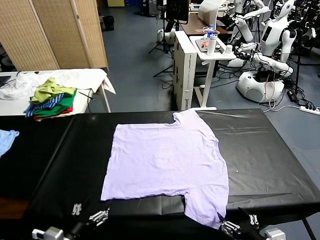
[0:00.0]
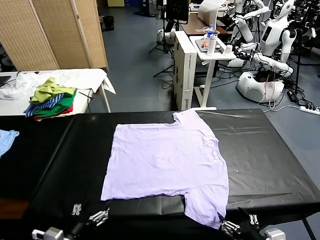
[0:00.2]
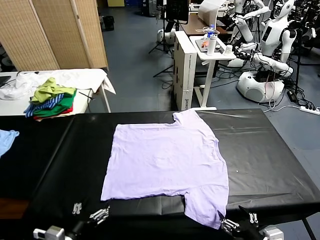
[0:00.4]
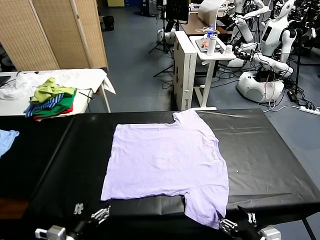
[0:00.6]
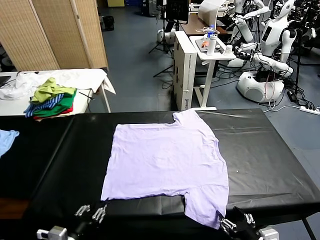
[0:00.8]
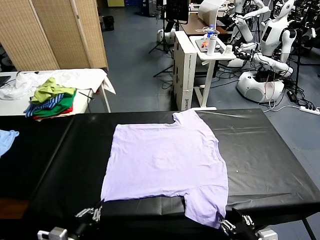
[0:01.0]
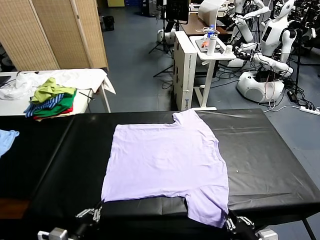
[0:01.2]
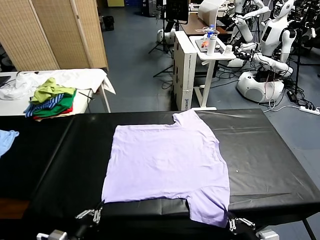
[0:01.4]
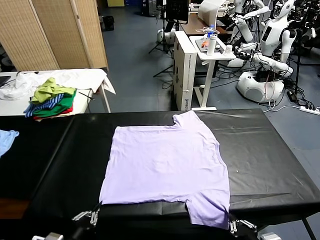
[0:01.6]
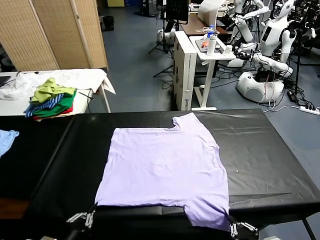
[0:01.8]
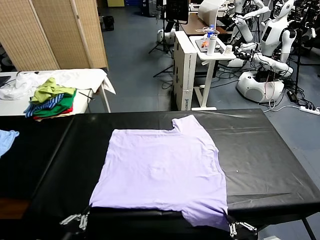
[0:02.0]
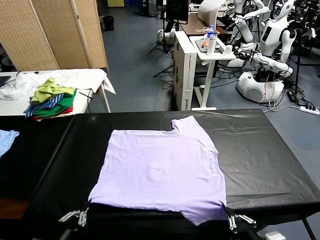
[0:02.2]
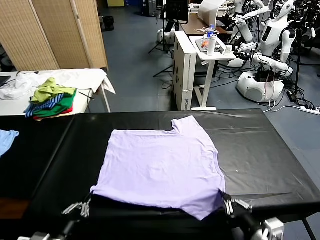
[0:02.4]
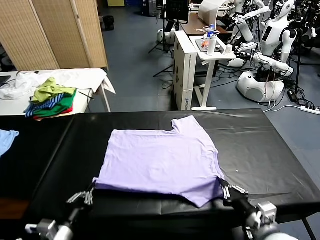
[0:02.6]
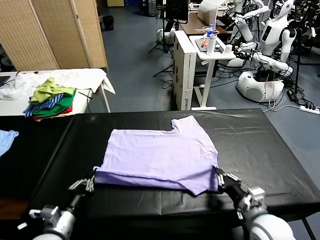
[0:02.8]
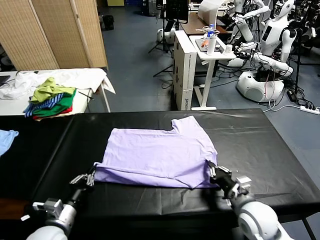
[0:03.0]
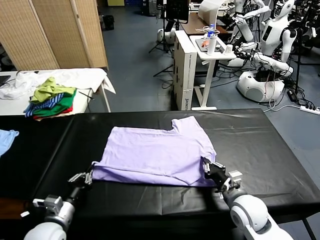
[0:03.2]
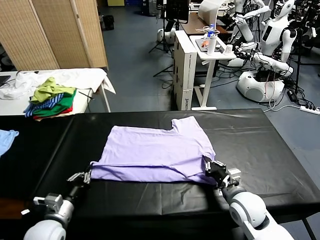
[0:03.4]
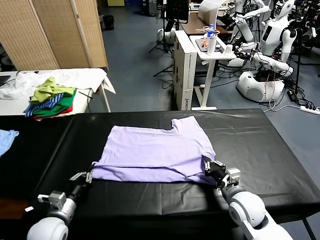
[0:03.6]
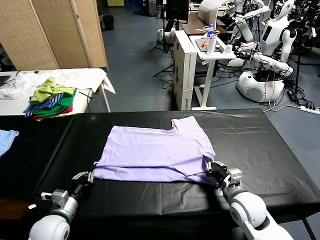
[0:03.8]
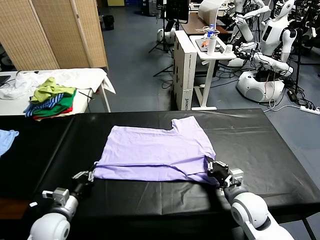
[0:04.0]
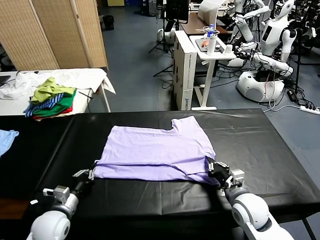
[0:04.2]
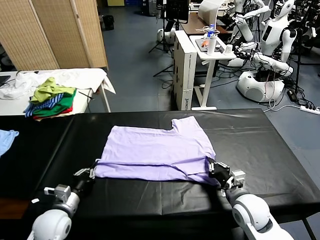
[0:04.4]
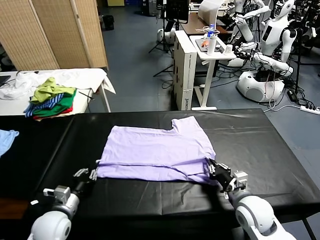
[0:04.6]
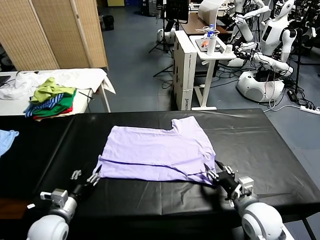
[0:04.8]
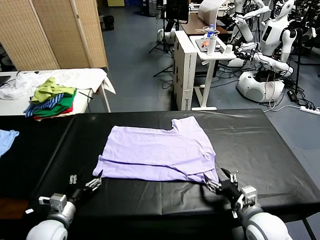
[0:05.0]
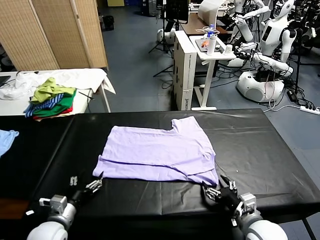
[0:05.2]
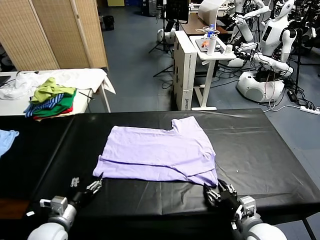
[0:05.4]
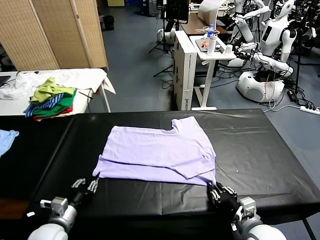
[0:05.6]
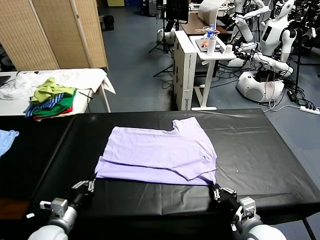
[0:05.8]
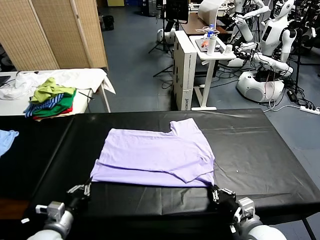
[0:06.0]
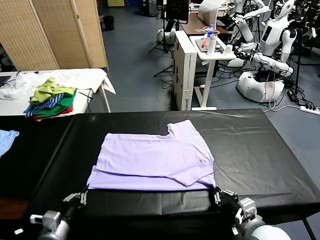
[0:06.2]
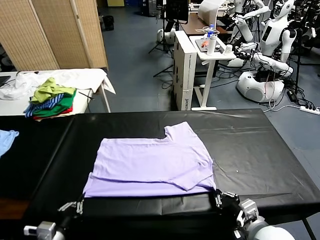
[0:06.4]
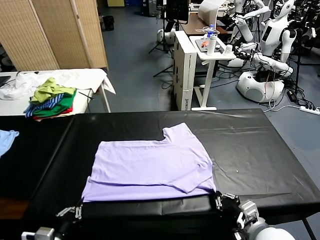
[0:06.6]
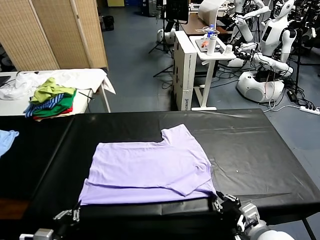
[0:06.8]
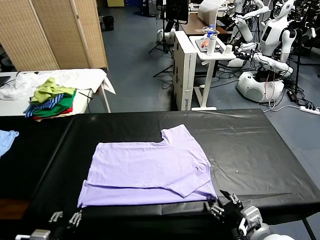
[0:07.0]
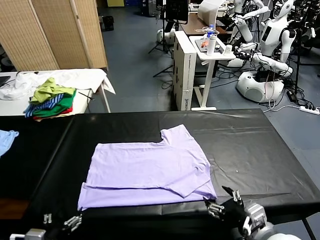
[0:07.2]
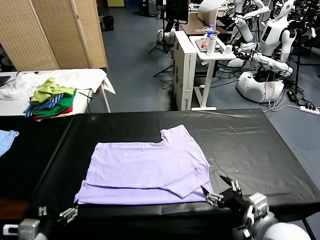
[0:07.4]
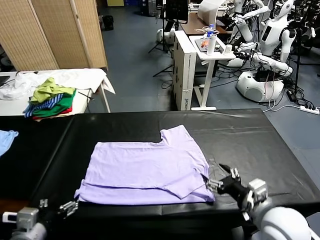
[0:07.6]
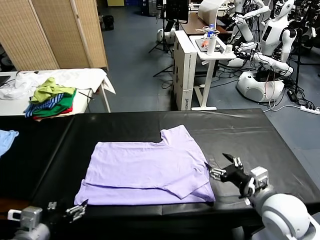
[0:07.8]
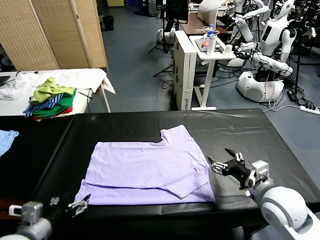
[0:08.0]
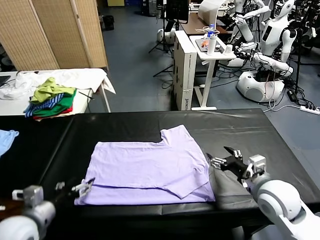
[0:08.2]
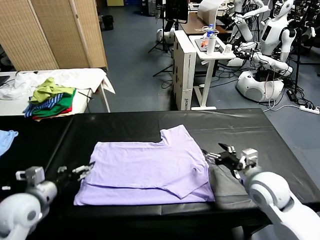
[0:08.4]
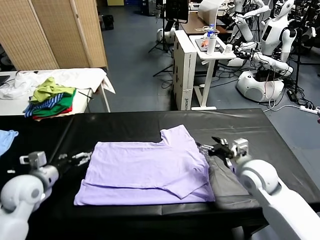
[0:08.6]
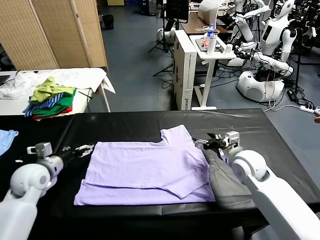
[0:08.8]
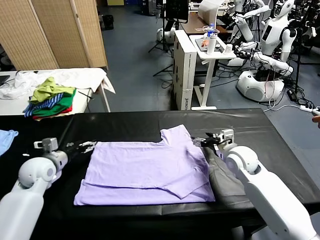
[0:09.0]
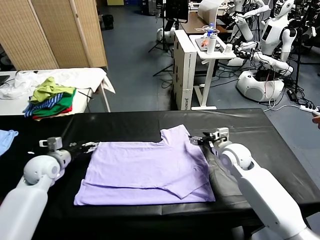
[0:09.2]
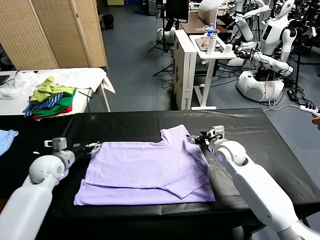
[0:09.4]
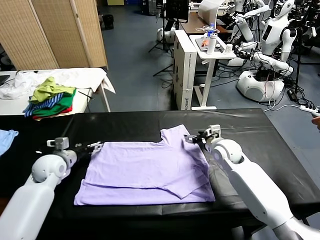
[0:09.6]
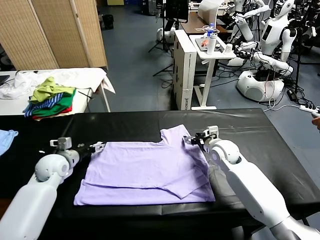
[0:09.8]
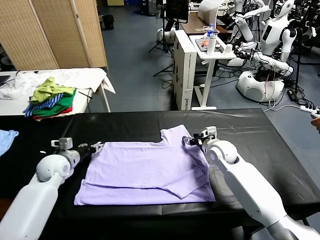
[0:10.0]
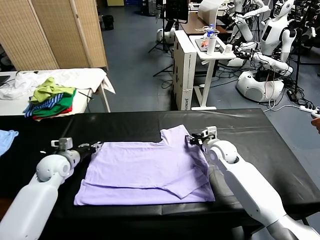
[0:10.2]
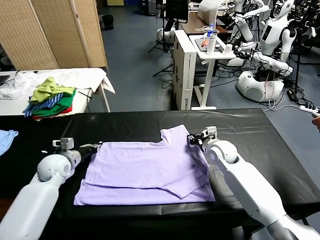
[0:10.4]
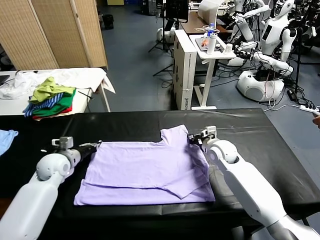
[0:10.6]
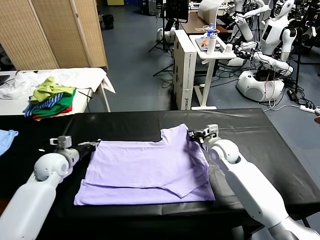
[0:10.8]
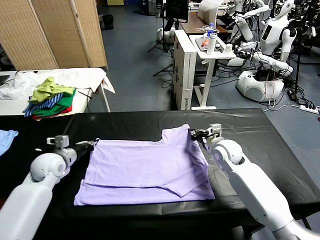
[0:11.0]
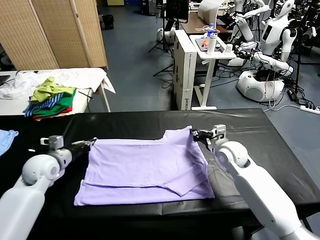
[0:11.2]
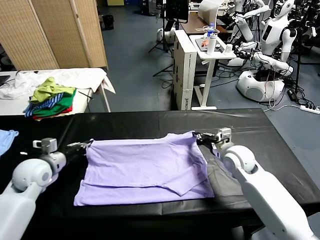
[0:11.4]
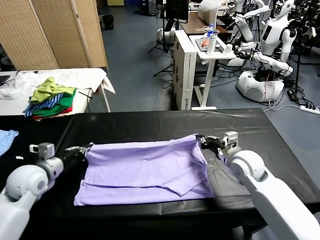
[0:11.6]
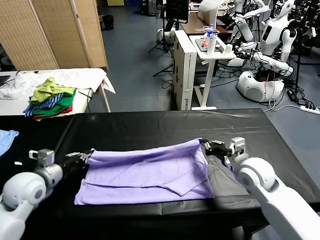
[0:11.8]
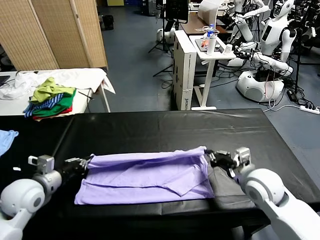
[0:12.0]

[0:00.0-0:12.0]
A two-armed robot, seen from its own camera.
Task of the whole recording: fold and organize the clothes.
Step, 0:00.0 to 0:01.4: use both grippers simultaneously to clamp the lower edge of the clothing fabric.
Step, 0:01.6 to 0:04.8: use both grippers to drag the lower edge of the fabric forward and fold it over the upper edge.
Step, 0:05.0 to 0:07.6: Drag the clothes downward with both gripper.
Step, 0:08.0 to 0:10.6: use both grippers simultaneously to clamp the upper edge of the clothing fabric.
0:01.6 to 0:03.0: The right gripper travels forward by approximately 20 cm. Meanwhile the left gripper goes some 10 cm forward.
0:03.0 to 0:04.4: The right gripper opens up; the left gripper ends up roughly 5 cm from where it was.
0:04.4 to 0:06.0: Both grippers move backward, some 10 cm. The right gripper closes up, while the left gripper opens, then closes once more.
0:06.0 to 0:07.6: Both grippers move upward, approximately 10 cm. The left gripper opens; the right gripper opens.
0:07.6 to 0:09.0: The two grippers go about 25 cm forward.
0:09.0 to 0:10.4: The right gripper moves about 5 cm, and closes up, while the left gripper closes its fingers.
0:10.4 to 0:12.0: The right gripper shifts about 20 cm backward; the left gripper goes about 15 cm backward and upward.

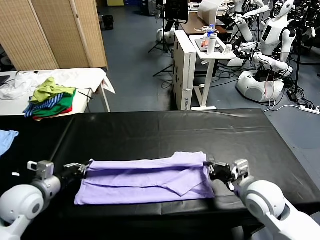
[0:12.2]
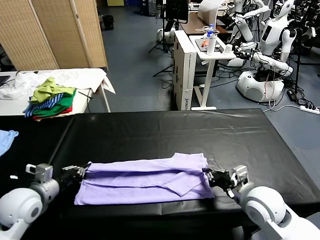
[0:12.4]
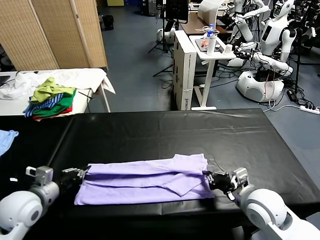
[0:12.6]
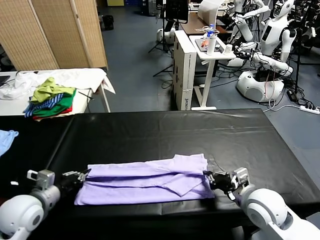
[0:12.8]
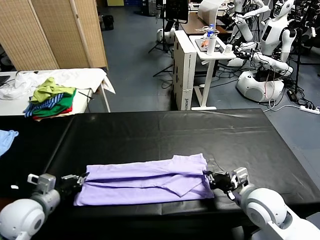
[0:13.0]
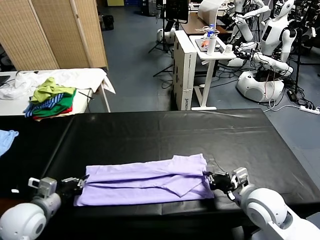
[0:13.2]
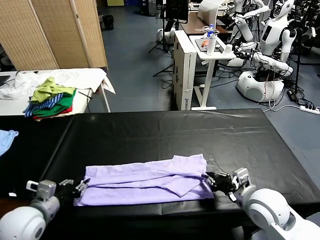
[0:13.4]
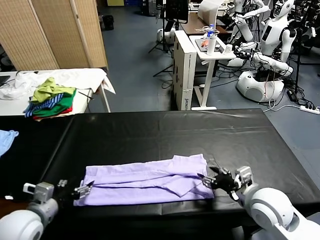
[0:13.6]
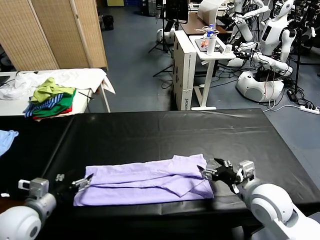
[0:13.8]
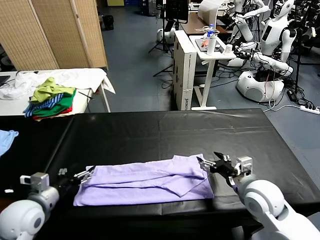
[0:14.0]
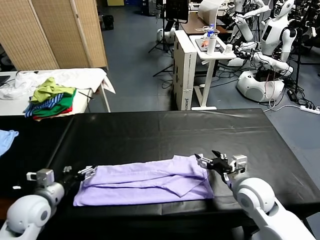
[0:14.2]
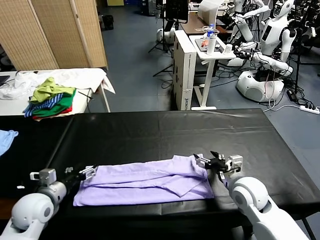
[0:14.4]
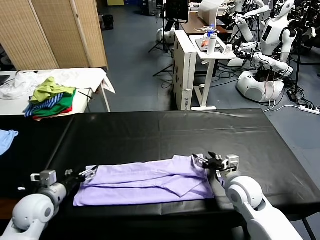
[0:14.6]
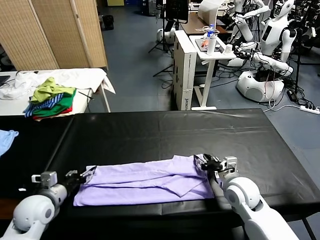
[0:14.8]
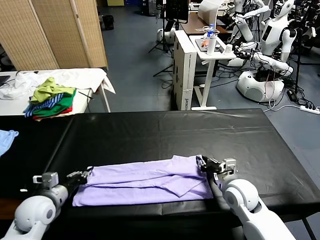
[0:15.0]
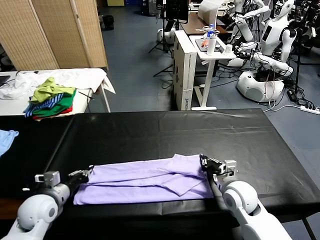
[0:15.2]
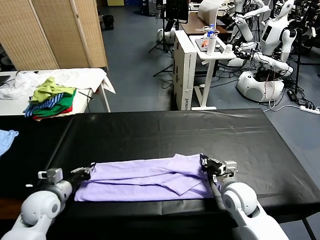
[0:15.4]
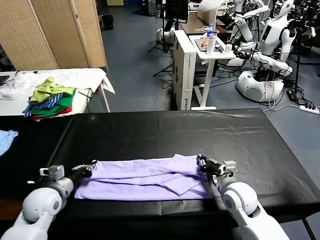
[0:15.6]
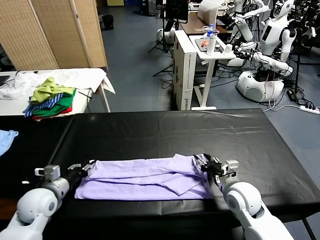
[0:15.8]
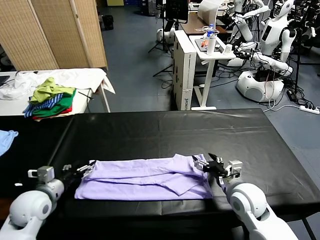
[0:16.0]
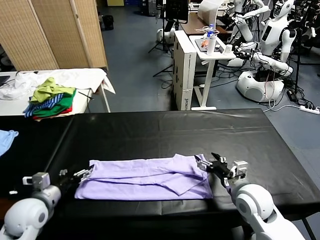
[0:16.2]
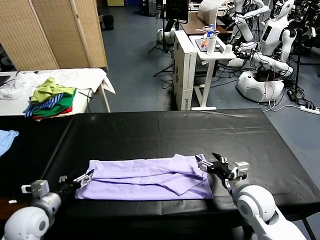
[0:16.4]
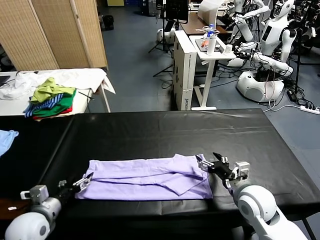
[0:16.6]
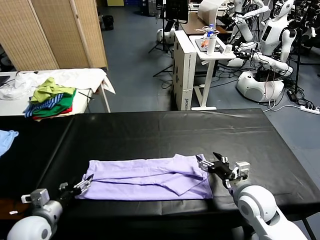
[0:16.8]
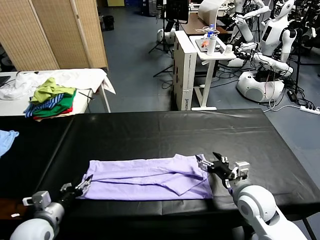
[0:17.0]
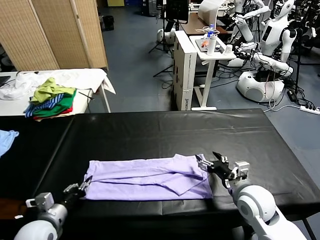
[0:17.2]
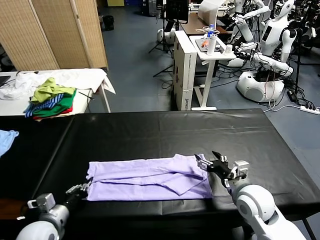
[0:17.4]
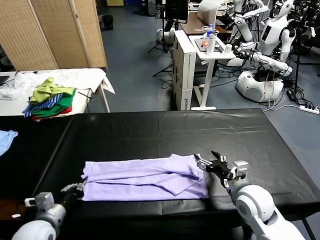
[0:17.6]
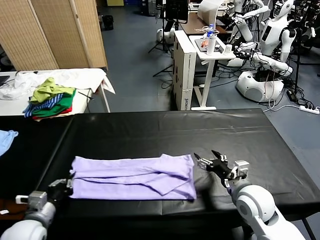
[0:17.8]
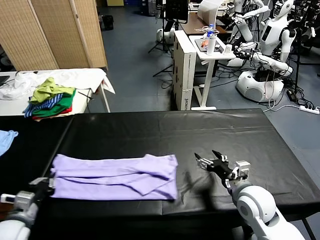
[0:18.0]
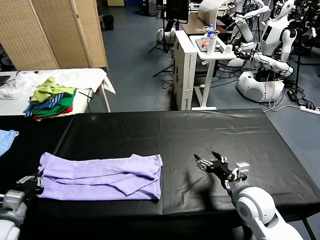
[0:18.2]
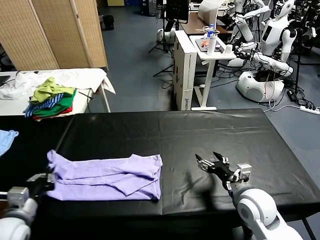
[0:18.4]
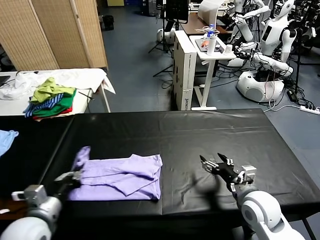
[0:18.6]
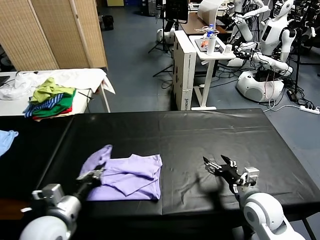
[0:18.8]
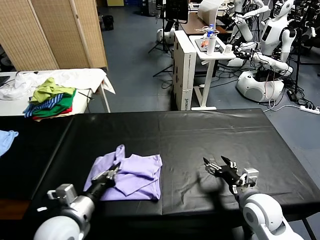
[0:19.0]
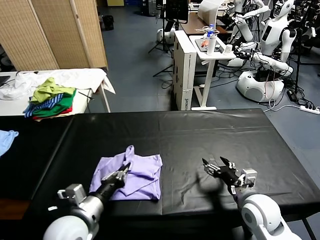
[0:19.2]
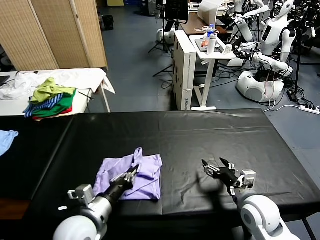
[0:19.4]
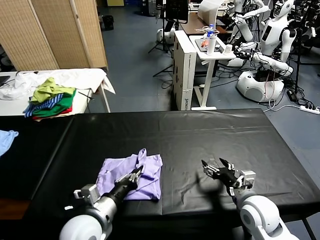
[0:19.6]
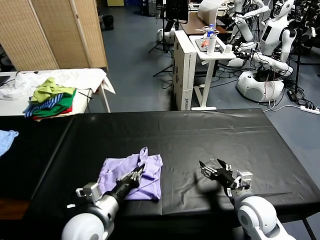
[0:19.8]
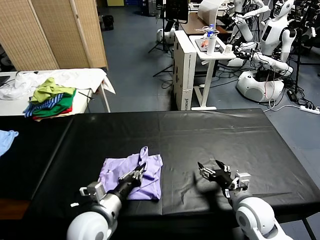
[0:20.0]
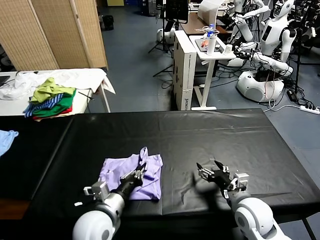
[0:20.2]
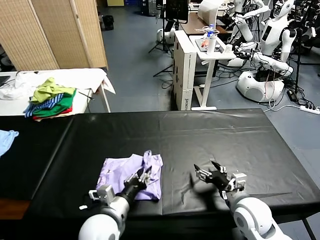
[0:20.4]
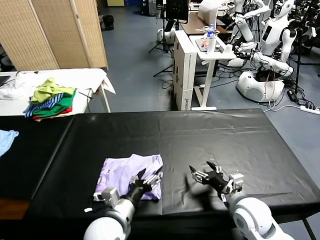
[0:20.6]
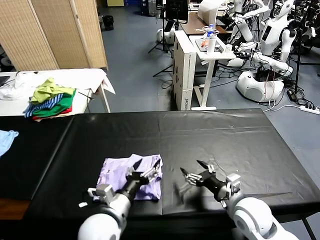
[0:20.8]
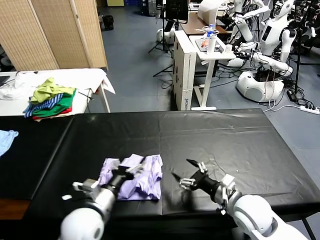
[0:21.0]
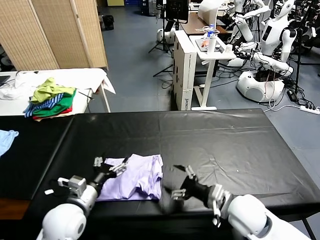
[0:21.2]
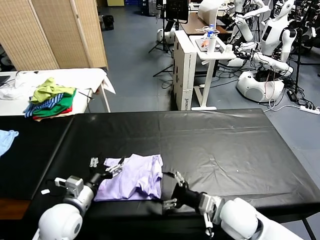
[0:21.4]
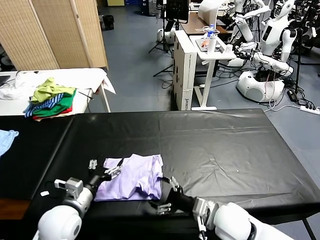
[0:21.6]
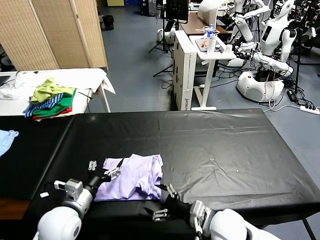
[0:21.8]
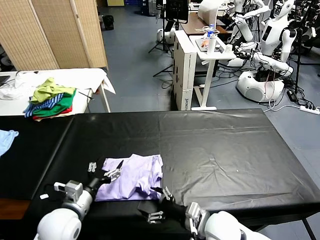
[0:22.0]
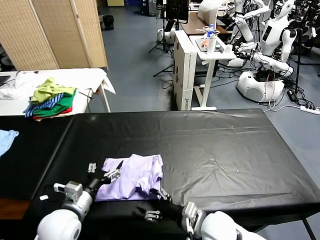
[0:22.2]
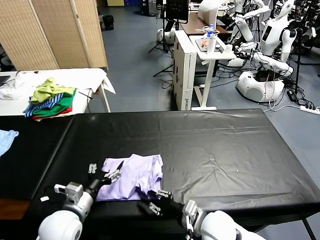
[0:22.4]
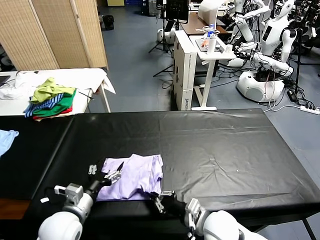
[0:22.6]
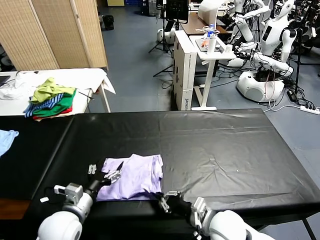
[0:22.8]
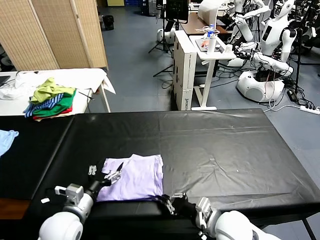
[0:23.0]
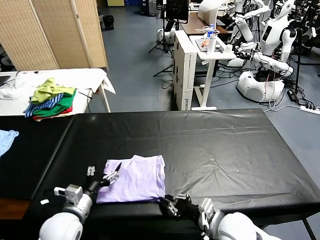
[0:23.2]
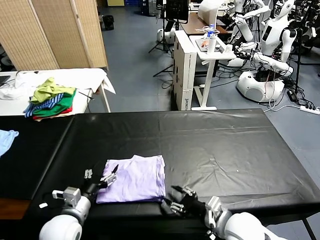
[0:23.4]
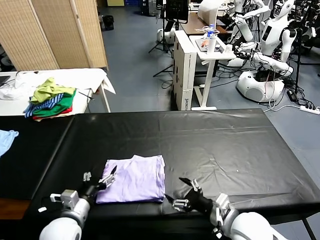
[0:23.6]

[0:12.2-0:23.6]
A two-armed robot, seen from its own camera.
Task of the whole recording: fold and organize the clothes.
Step, 0:12.2 to 0:13.6: use both grippers to drag the upper edge of the fabric backward and fold it over the lower edge.
Step, 0:13.8 to 0:17.4: use the left gripper to clamp the left edge of the fabric.
Step, 0:17.6 to 0:20.8: use the left gripper to drag the left edge of the fabric to the left and folds it over the right edge.
0:12.2 to 0:13.6: The left gripper heads backward, covering approximately 5 cm, and opens, while the right gripper opens its fingers.
0:13.6 to 0:15.0: The left gripper heads downward and forward, covering about 10 cm, and closes up; the right gripper moves downward, some 10 cm, and closes its fingers.
0:15.0 to 0:16.4: The left gripper opens its fingers. Meanwhile the right gripper ends up roughly 5 cm from where it was, and opens up.
0:16.4 to 0:17.8: The left gripper closes up.
0:17.8 to 0:19.4: The left gripper shifts approximately 15 cm to the right.
0:19.4 to 0:20.8: The left gripper changes place by some 5 cm, and opens its fingers.
0:20.8 to 0:22.2: The grippers both shift to the left by about 10 cm.
0:22.2 to 0:23.6: The right gripper shifts some 10 cm to the right and upward, and closes, then opens again.
